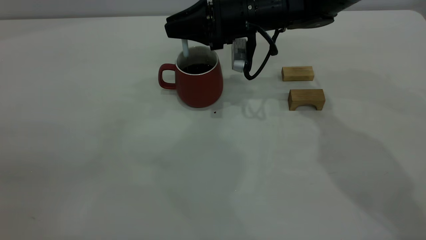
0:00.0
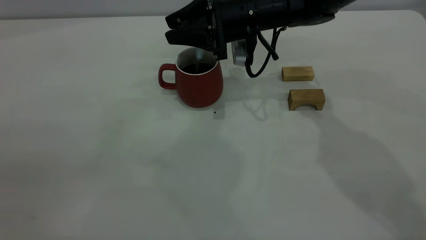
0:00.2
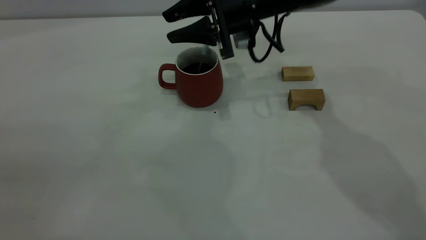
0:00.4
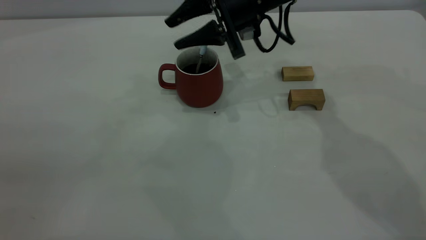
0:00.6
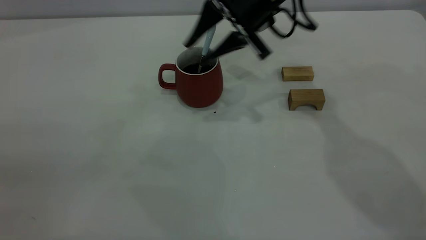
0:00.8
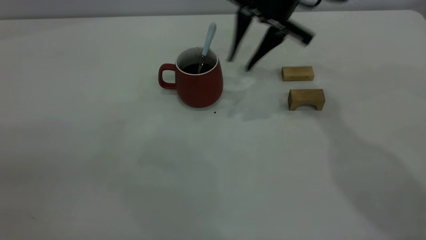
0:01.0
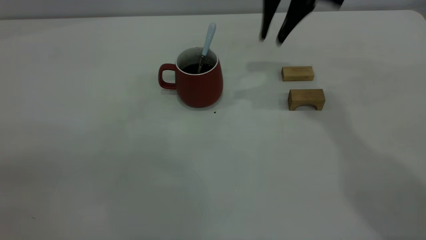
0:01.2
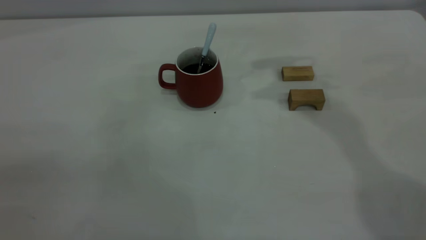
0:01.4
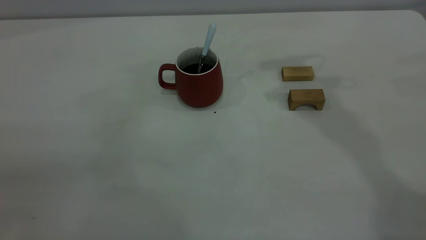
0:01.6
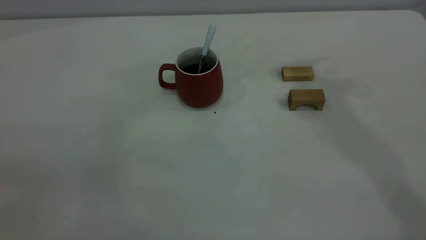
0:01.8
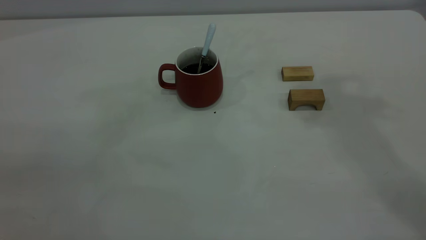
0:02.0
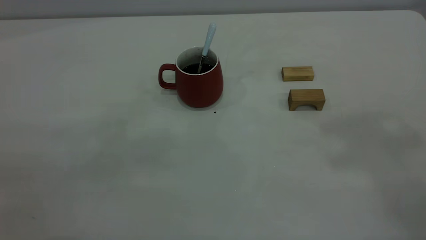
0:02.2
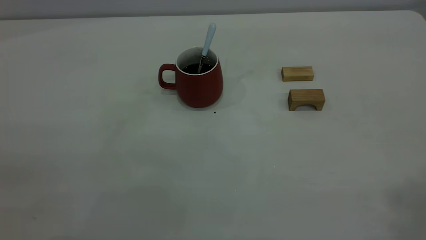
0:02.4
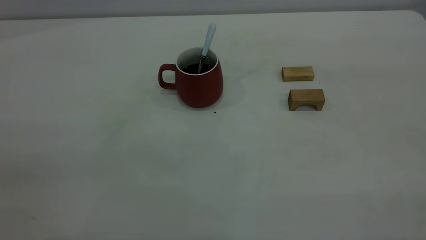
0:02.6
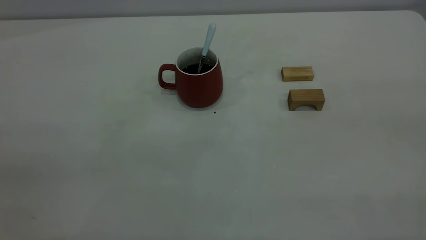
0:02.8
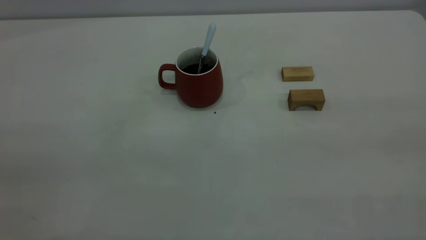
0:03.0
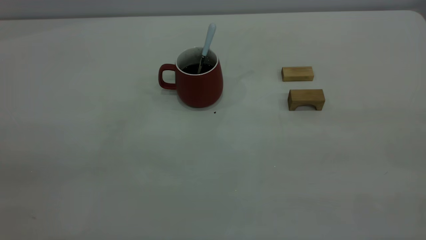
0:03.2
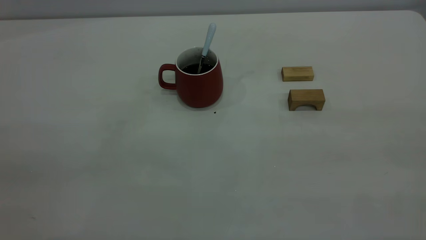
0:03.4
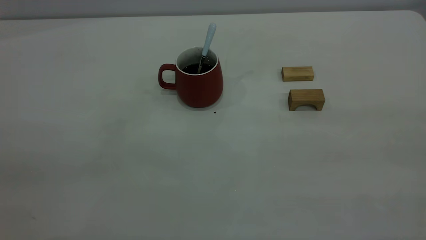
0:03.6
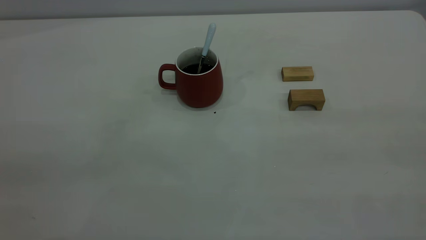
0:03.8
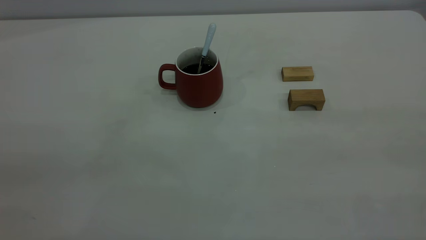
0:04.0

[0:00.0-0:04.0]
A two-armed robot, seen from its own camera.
0:00.0 to 0:01.4: The right gripper shifts roughly 25 cm upward and to the right.
